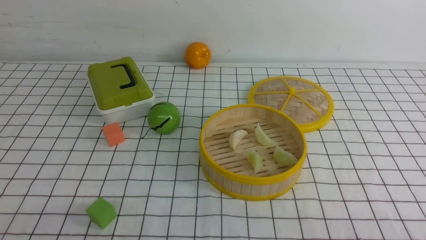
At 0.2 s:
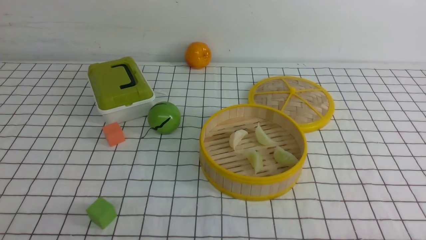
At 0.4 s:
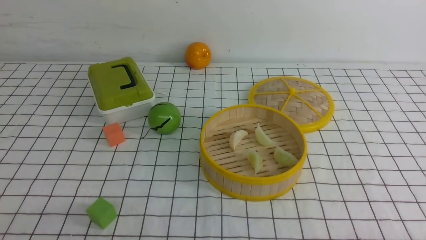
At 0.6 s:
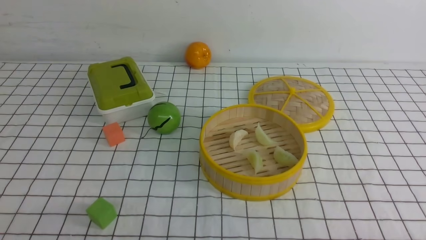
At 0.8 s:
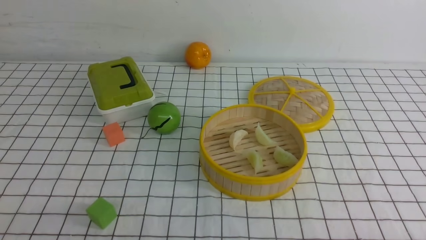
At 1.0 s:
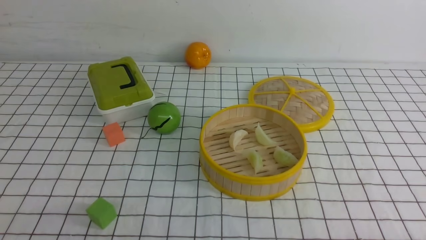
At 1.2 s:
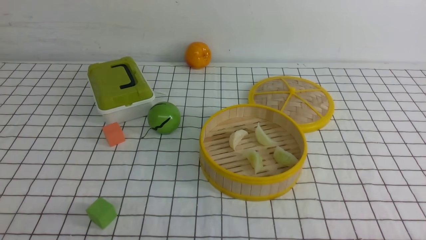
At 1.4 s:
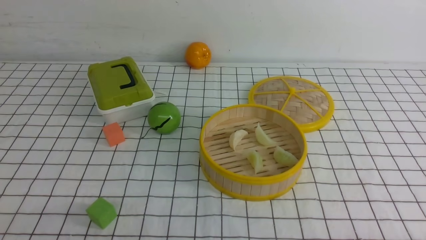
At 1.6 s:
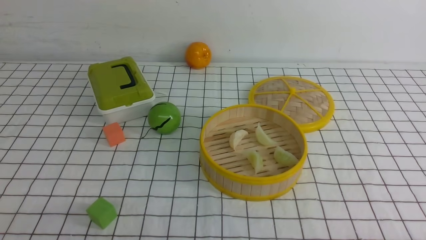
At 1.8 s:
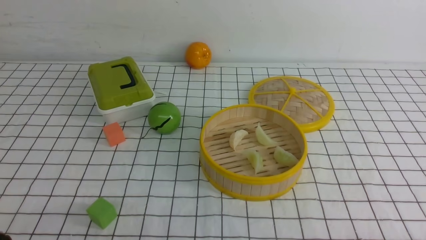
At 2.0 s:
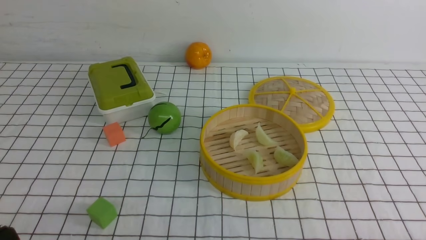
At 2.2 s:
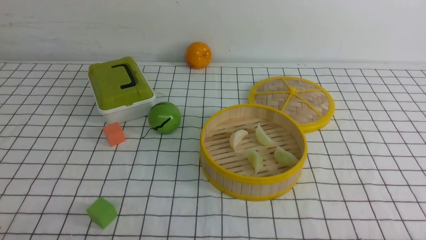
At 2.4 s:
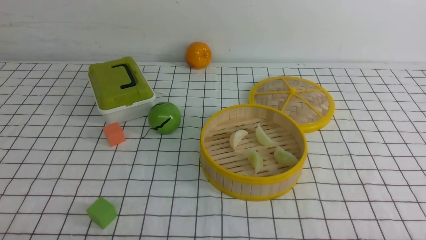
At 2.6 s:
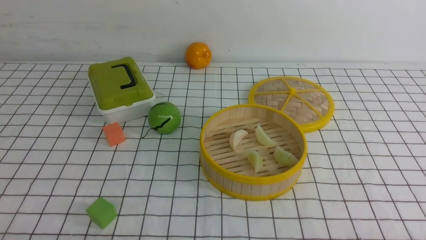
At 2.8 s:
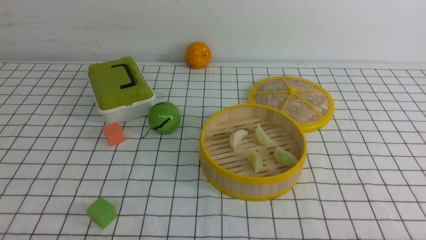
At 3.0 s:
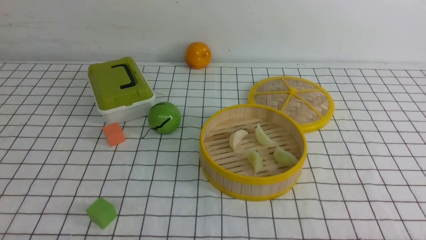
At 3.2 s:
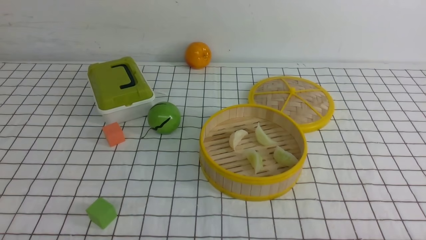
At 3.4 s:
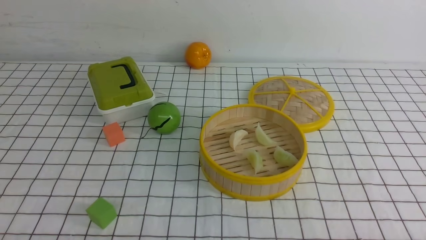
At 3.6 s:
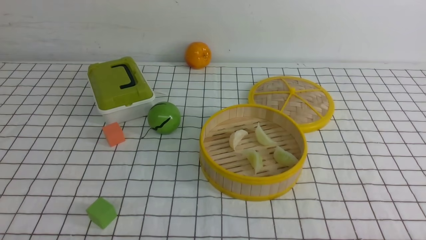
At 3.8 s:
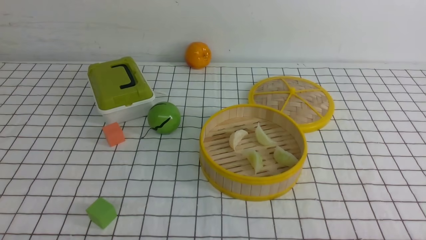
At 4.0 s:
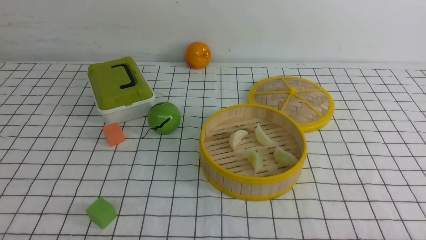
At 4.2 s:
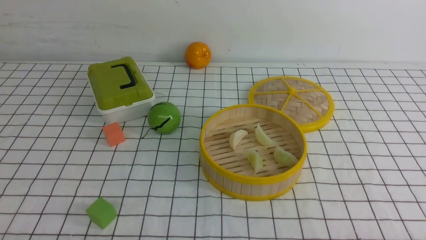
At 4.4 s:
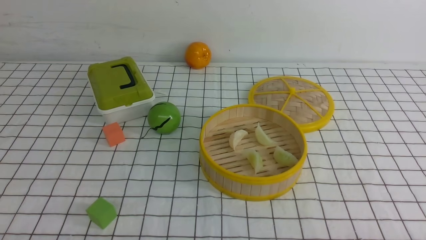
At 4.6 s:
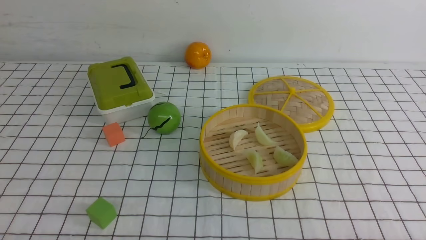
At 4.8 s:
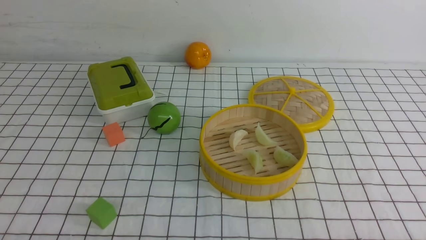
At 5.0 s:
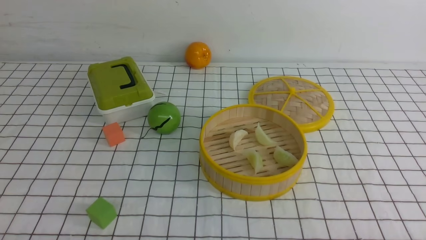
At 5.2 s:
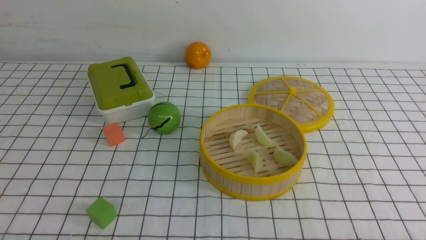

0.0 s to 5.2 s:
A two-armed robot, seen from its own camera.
Task of the whole recording: put the dumplings into the steamer on the table with the white tablecloth.
3.4 to 5.2 s: Both grippers stay put.
